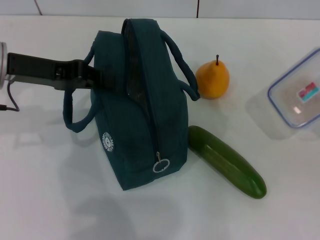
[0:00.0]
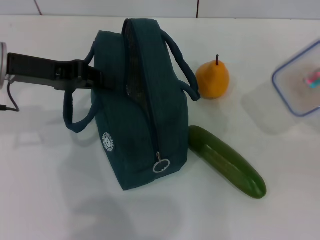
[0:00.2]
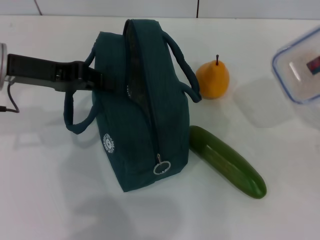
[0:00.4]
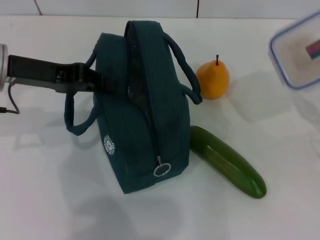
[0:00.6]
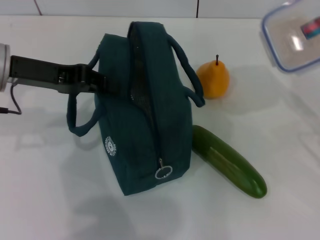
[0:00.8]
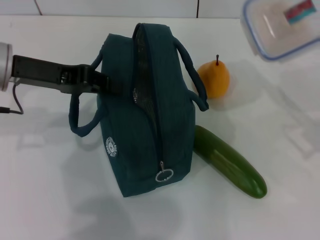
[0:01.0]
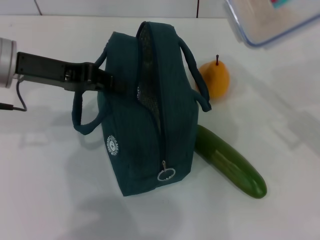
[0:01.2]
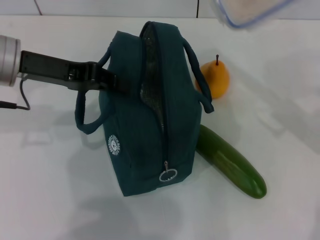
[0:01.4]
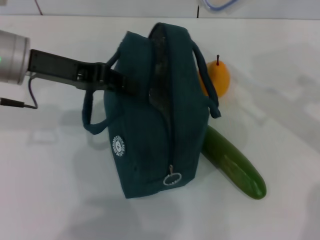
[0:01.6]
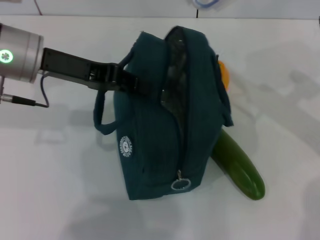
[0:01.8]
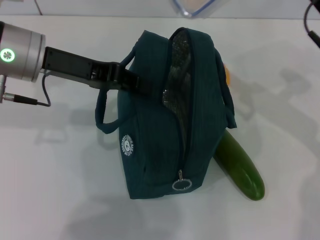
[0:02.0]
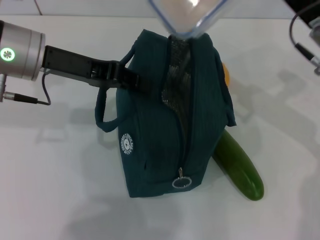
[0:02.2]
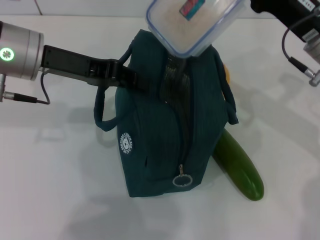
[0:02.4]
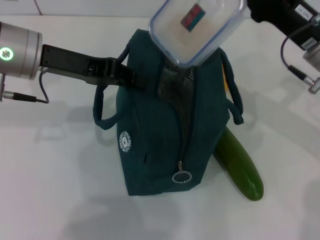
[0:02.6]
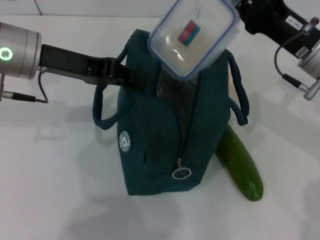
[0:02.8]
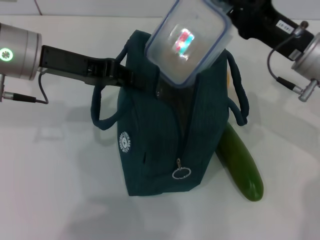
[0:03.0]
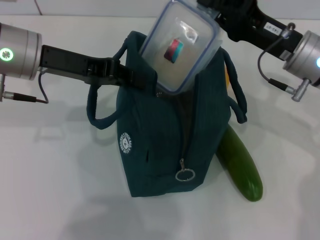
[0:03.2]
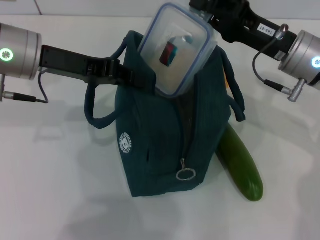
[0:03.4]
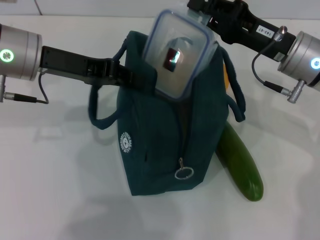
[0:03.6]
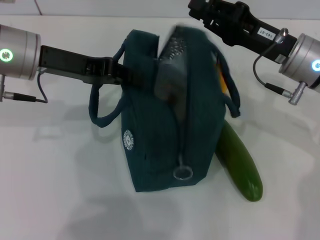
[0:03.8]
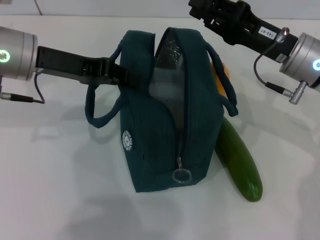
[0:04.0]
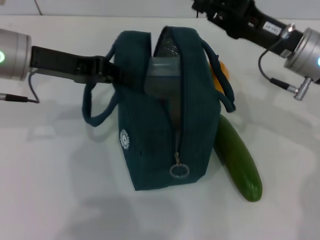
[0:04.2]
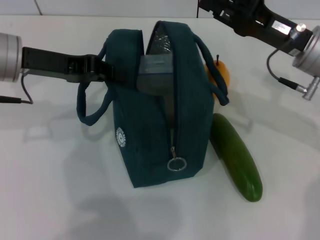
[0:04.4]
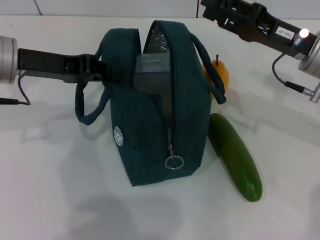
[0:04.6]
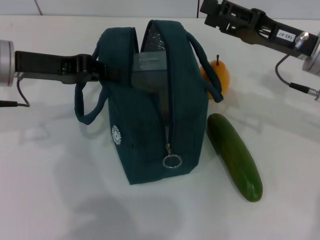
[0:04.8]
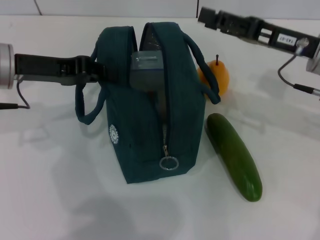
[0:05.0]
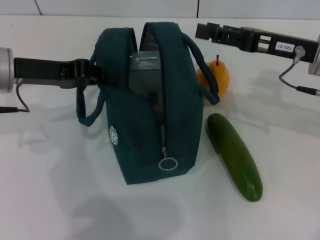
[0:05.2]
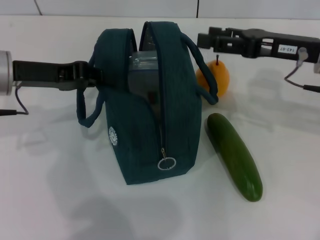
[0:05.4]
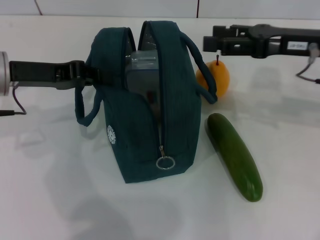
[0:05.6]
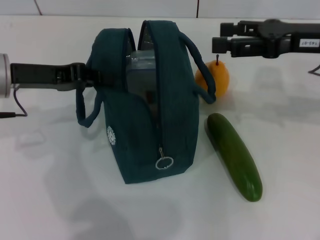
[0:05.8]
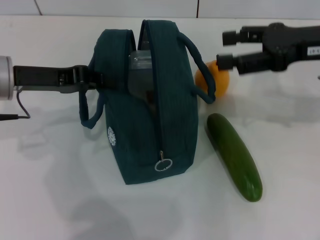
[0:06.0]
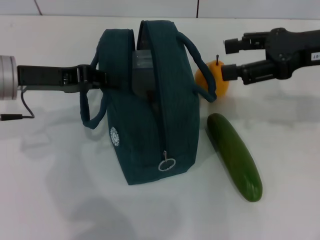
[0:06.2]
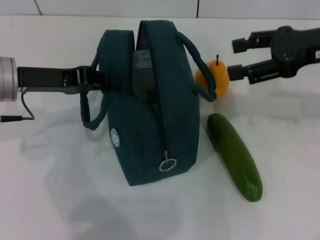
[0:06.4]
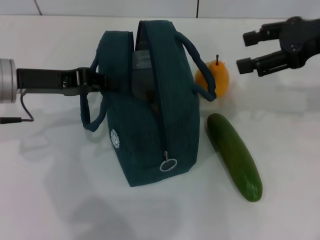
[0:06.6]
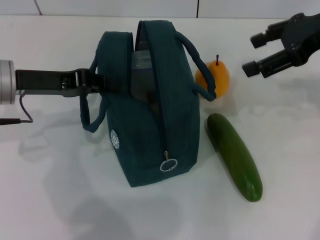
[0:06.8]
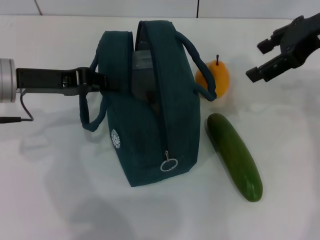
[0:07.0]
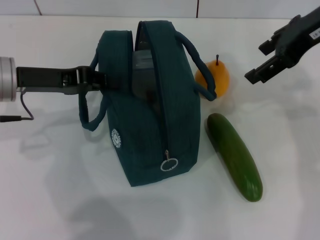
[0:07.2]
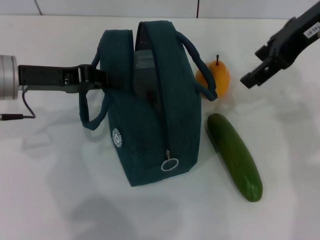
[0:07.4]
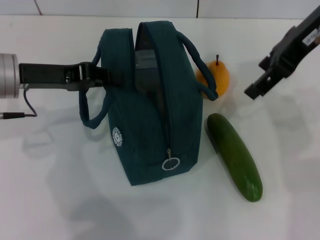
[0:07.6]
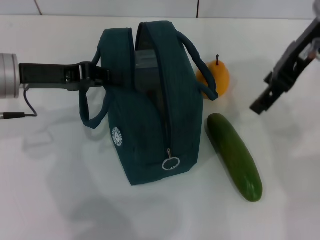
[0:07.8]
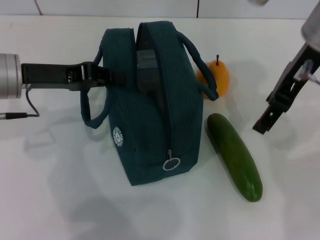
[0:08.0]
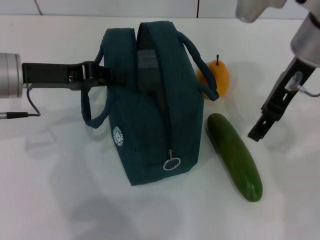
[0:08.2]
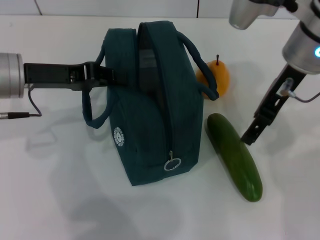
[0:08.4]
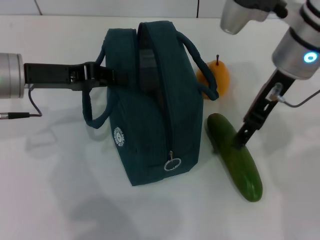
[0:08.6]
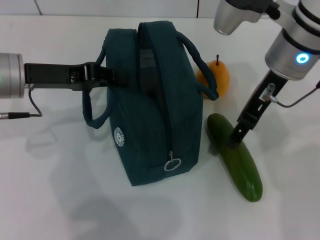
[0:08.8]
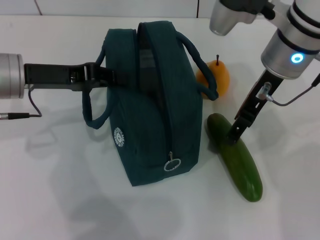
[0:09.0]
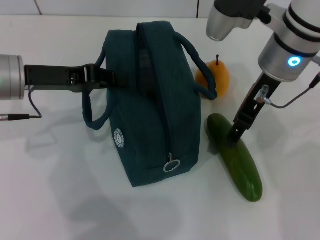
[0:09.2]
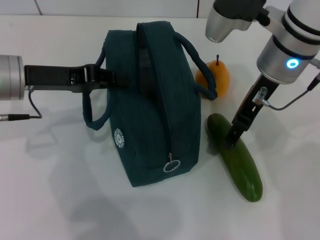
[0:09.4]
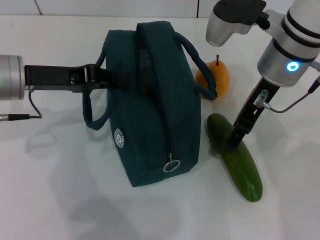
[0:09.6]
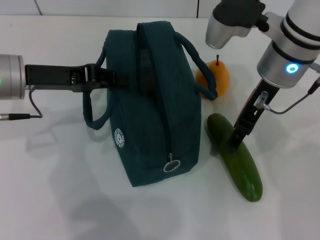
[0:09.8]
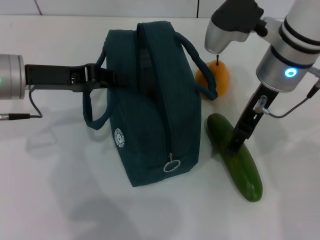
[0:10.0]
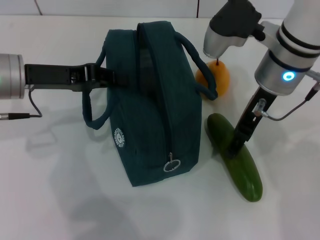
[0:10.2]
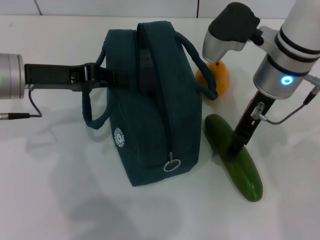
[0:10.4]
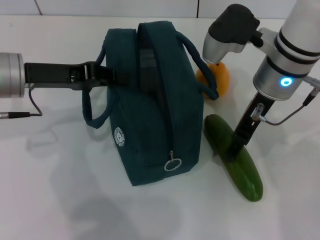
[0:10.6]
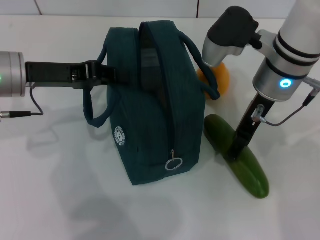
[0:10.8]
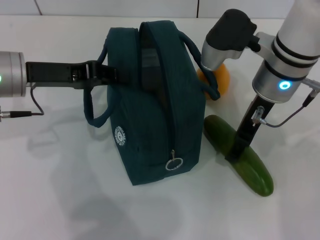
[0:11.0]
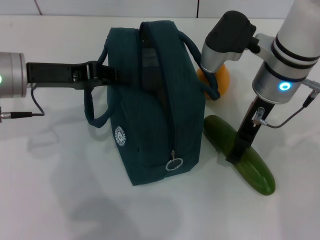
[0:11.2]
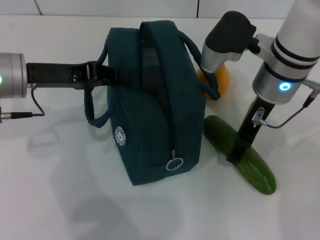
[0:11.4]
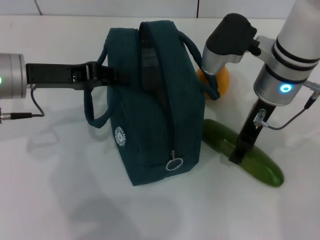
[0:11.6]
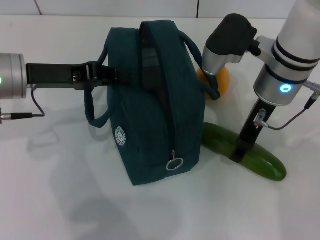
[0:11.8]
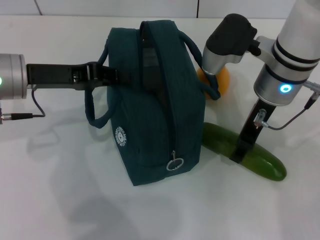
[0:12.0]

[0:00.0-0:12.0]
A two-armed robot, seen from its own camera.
Step, 0:00.0 to 0:04.2: Place the lunch box into the lunch bag with your right hand.
0:00.0 to 0:01.6: The right gripper is displaced to the left, forward and upward by about 20 cm.
0:01.6 to 0:03.0: The right gripper moves roughly 5 cm.
0:03.0 to 0:04.4: The grippers move only a little.
0:04.4 to 0:06.0: The right gripper is displaced upward by some 5 cm, and opens its fingers.
0:06.0 to 0:07.6: The right gripper moves upward and to the left, approximately 10 cm.
0:07.6 to 0:09.0: The right gripper goes roughly 10 cm downward and to the left.
0:09.0 to 0:10.4: There are only small adjustments of the grippers.
0:10.4 to 0:12.0: Both grippers stay about where they are.

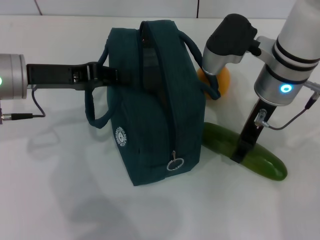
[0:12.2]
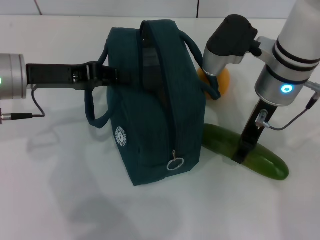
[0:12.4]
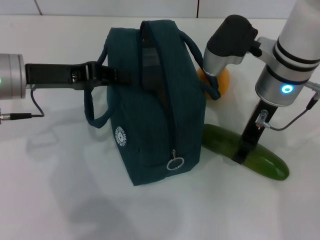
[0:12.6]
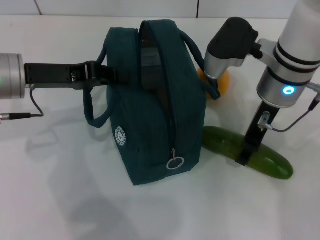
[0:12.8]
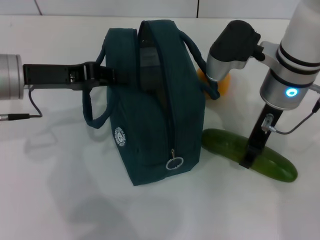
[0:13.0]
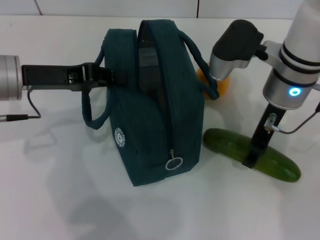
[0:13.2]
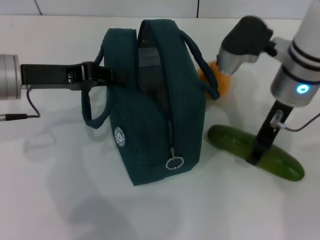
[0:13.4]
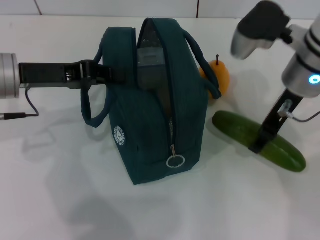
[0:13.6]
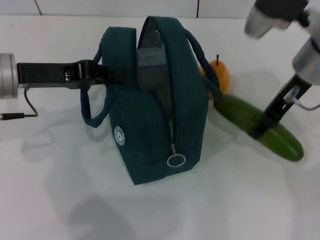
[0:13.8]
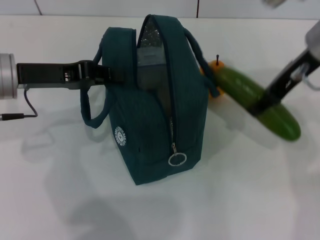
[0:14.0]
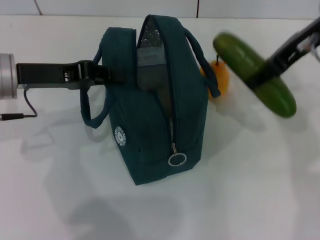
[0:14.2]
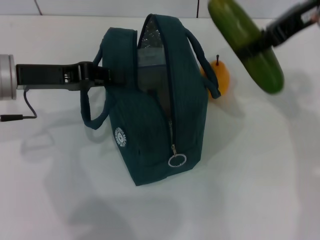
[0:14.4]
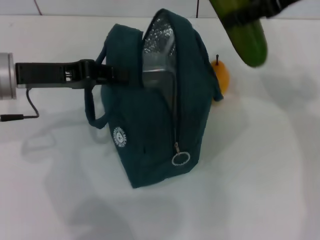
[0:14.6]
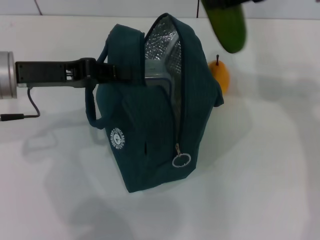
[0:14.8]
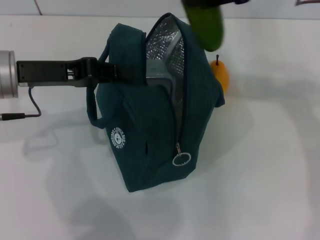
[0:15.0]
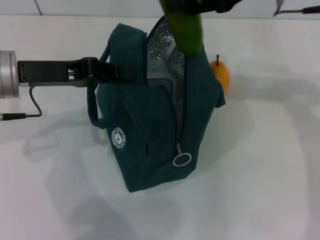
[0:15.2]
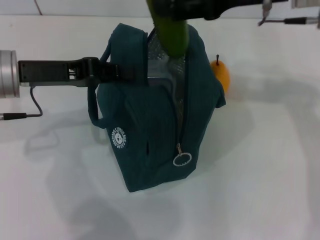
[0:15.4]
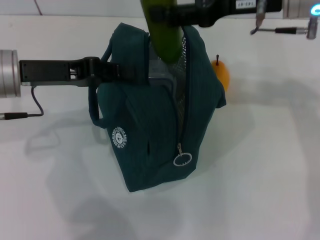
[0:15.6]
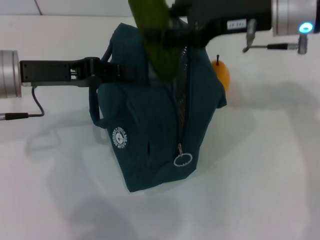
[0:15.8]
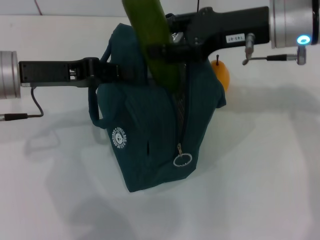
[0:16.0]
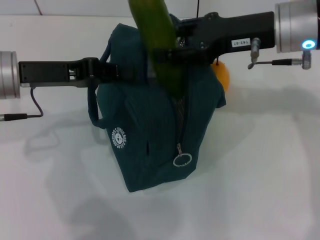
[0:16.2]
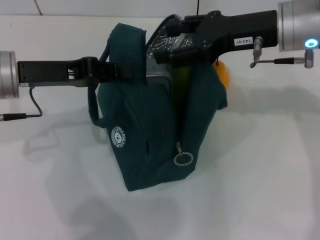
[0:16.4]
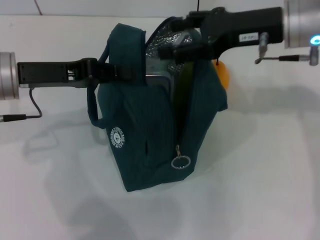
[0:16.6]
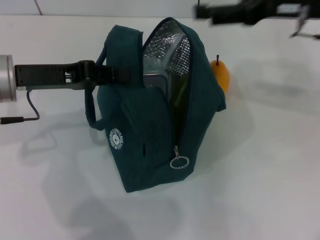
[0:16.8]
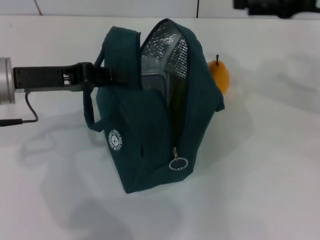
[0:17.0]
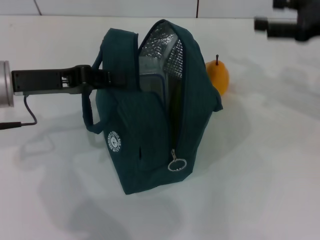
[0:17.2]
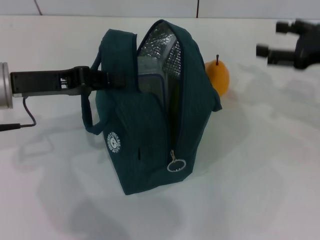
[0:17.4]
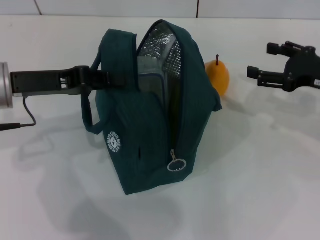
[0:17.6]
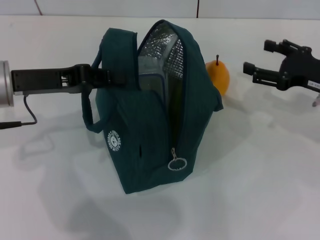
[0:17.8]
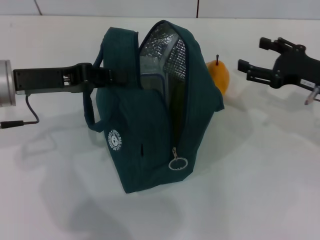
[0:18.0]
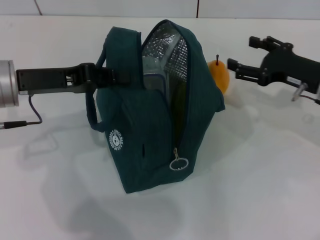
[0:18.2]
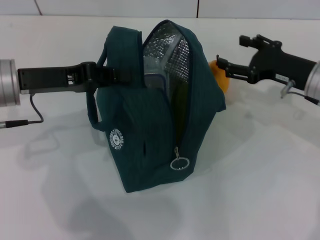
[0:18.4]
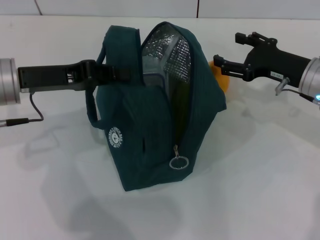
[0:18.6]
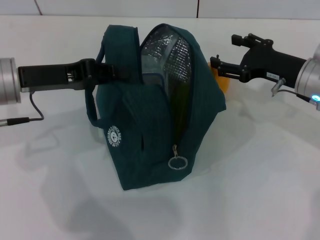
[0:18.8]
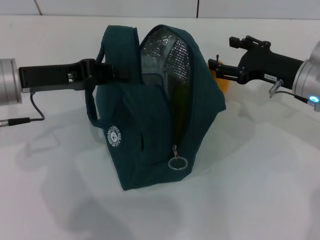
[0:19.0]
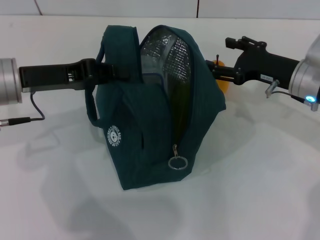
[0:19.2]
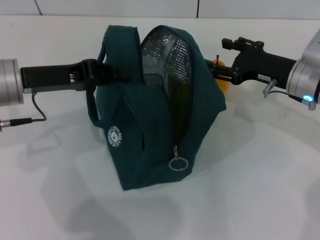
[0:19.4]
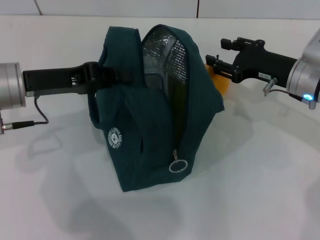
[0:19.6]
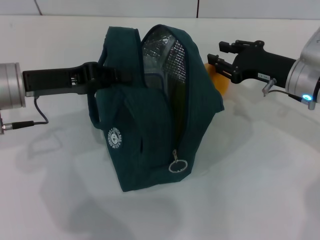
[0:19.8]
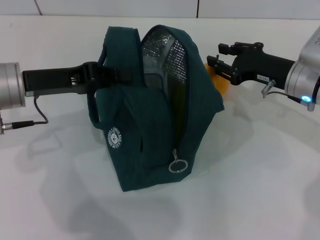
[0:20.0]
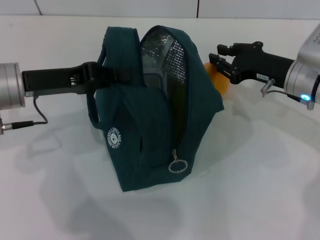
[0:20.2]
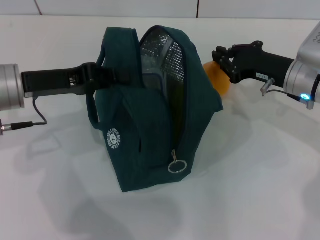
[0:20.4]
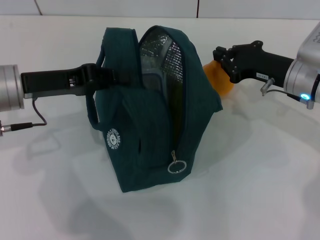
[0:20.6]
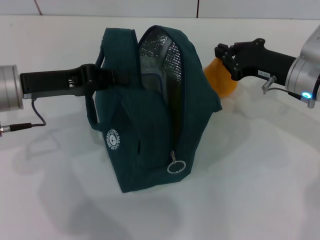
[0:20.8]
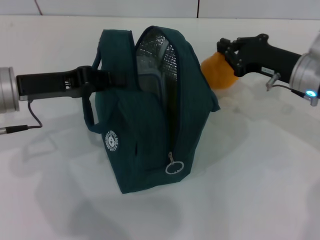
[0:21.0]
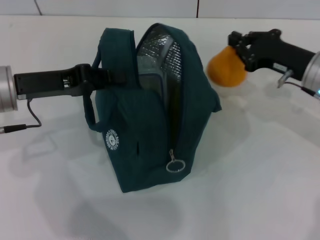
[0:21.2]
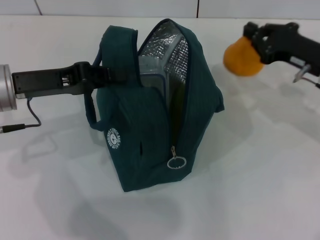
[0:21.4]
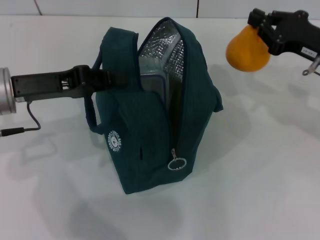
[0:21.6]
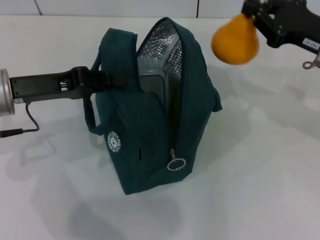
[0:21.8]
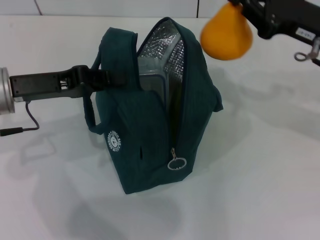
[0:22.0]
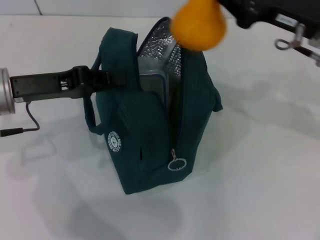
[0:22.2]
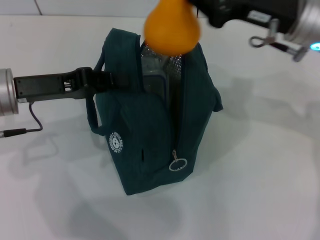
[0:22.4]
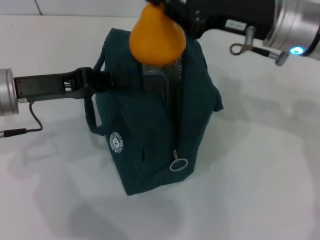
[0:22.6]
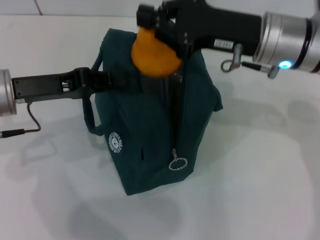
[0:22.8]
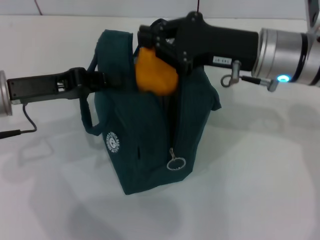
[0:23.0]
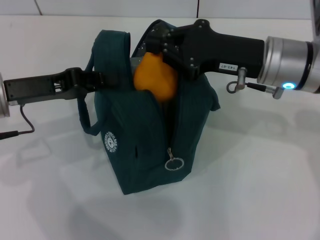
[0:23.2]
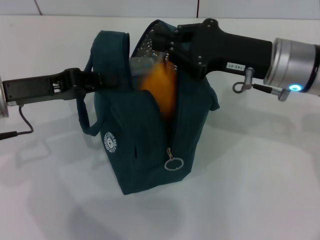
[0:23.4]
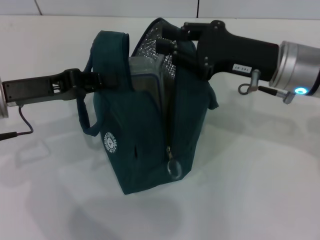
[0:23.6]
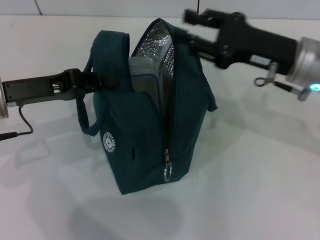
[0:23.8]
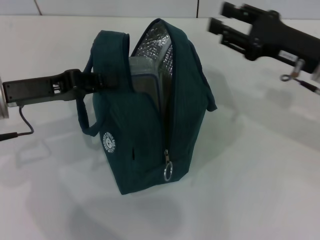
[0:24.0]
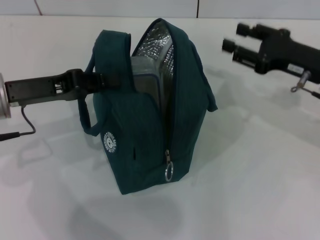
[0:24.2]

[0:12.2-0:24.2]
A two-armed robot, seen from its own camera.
Step, 0:12.8 to 0:17.2: Put the cucumber into the lunch bag with your right hand.
Step, 0:17.4 to 0:20.6: Grab the pear with your right hand.
0:12.2 to 0:13.8: The right gripper travels to the right by roughly 5 cm.
0:13.8 to 0:15.2: The right gripper travels upward by some 10 cm.
0:15.2 to 0:16.6: The right gripper heads downward, covering approximately 5 cm.
0:16.6 to 0:18.2: The right gripper moves downward and to the right, approximately 15 cm.
0:18.2 to 0:19.8: The grippers make only small movements.
0:19.8 to 0:21.2: The right gripper closes its fingers.
0:21.2 to 0:22.6: The right gripper heads upward and to the left, covering some 15 cm.
0:22.6 to 0:24.2: The right gripper moves to the right and downward, about 15 cm, and opens its fingers.
